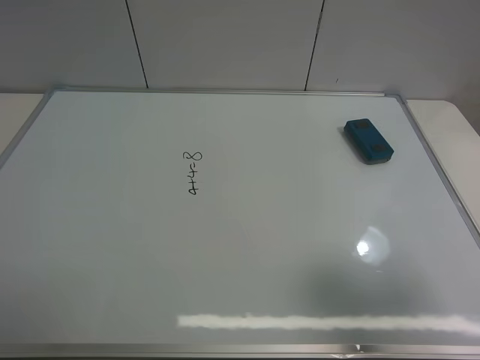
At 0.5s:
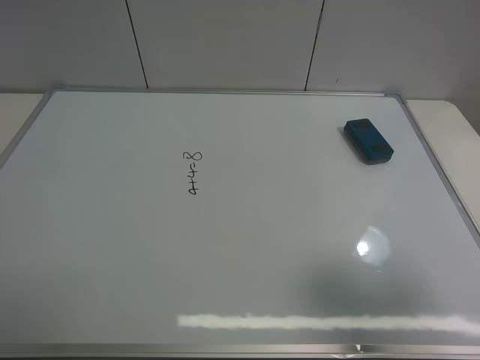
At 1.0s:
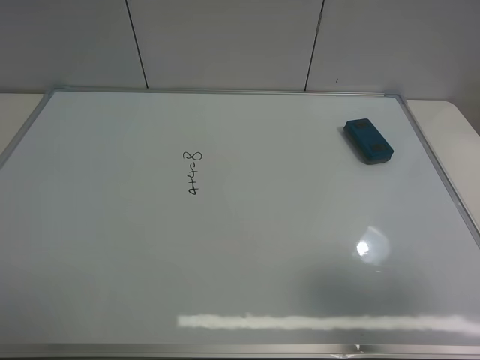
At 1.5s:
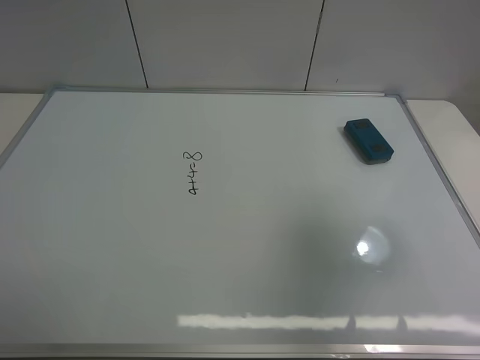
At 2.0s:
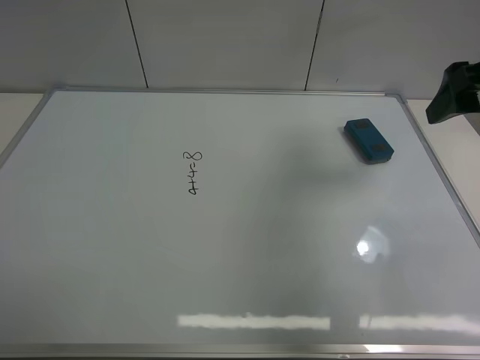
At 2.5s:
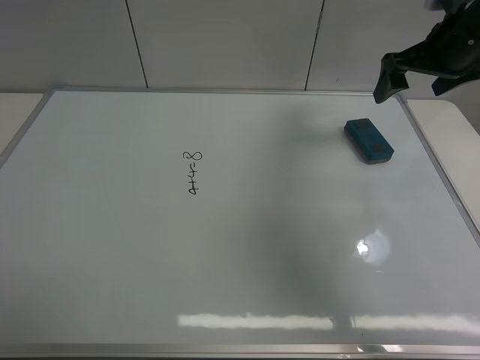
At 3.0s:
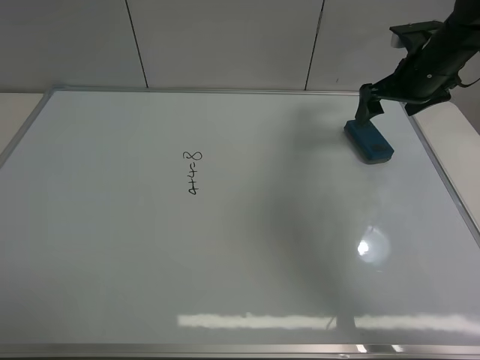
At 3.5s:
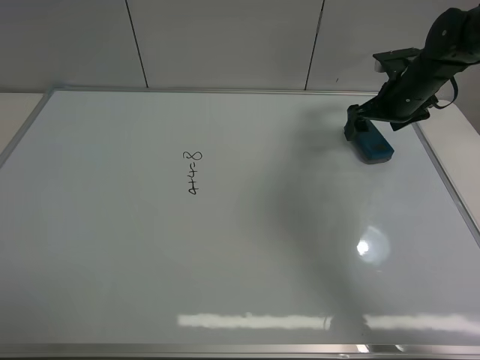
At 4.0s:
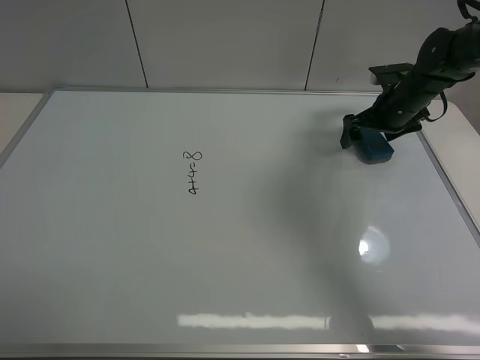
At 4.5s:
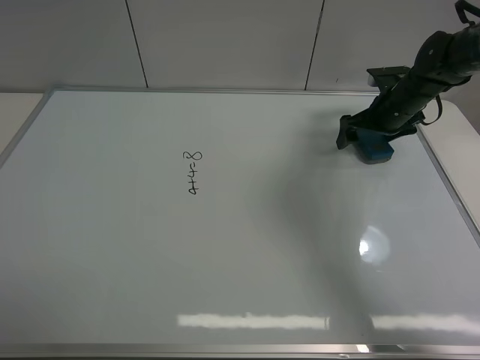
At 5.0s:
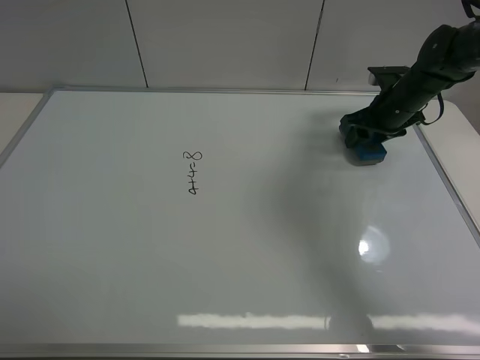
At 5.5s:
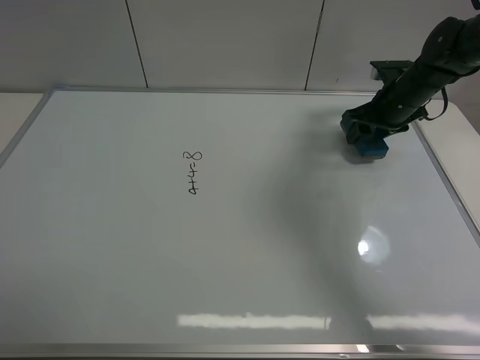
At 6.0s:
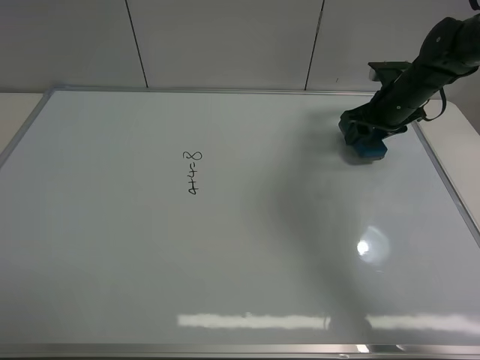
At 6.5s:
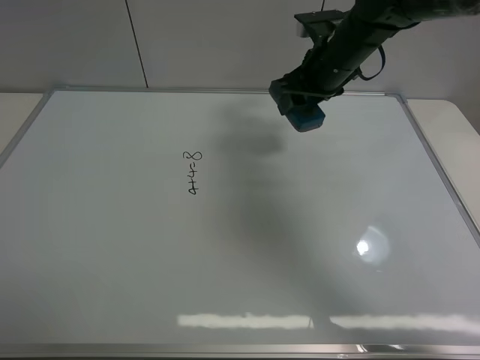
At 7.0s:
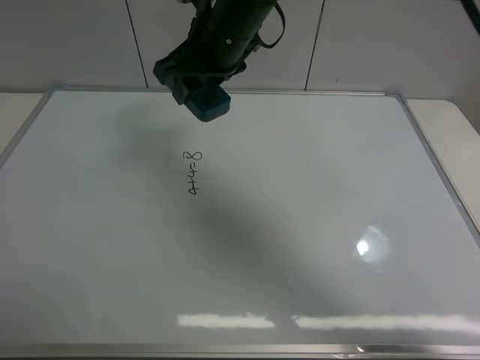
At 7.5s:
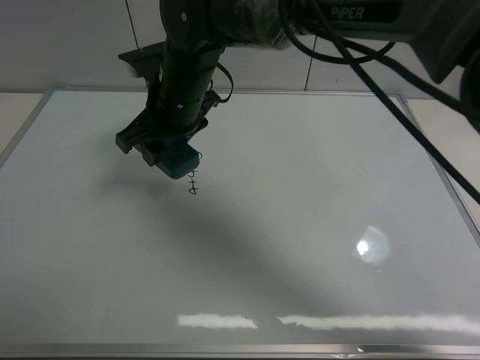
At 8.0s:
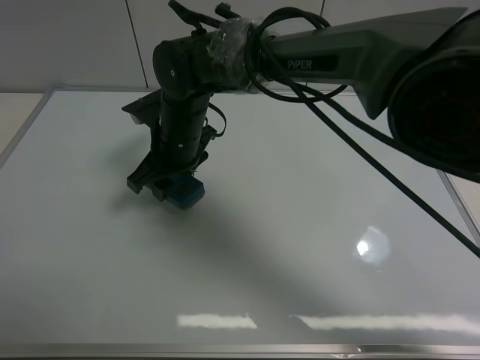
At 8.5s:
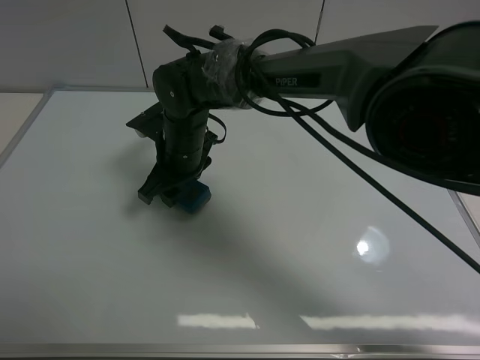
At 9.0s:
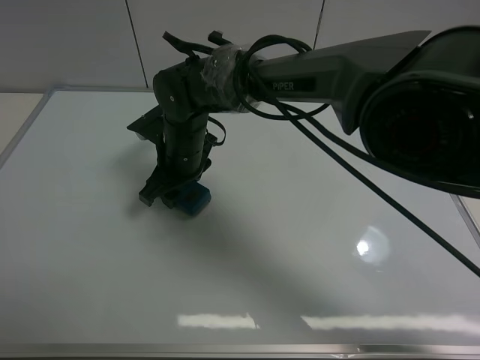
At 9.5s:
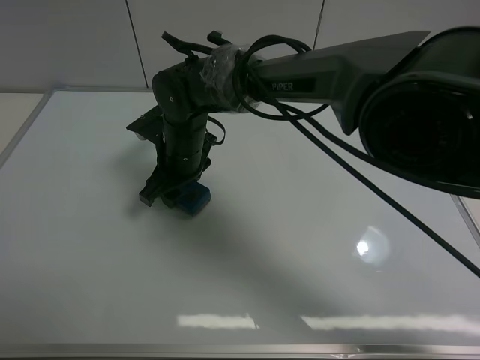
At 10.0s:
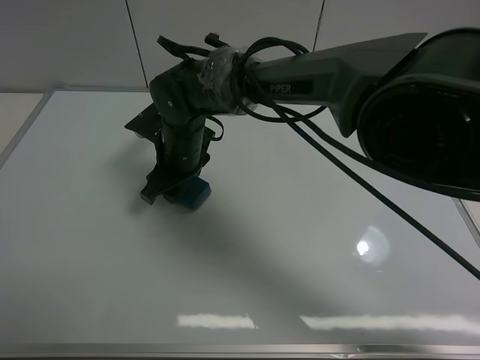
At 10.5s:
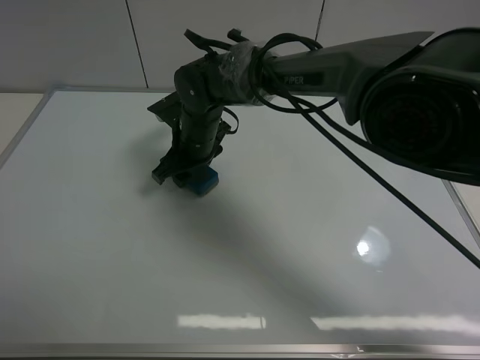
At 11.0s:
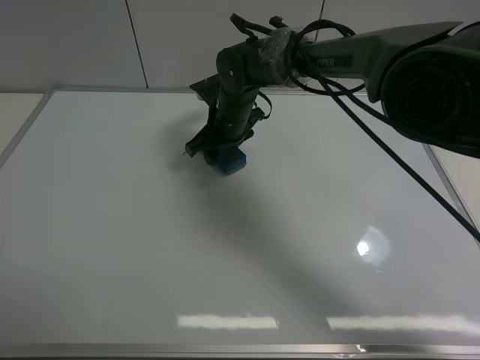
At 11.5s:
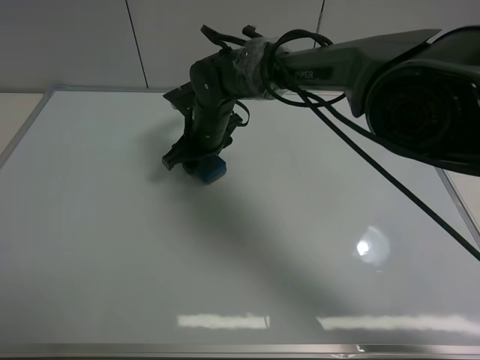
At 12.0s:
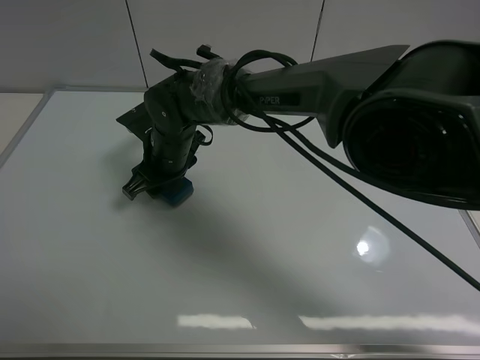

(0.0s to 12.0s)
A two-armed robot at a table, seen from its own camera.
Task of the whole recording: use the right gripper to pick up the board eraser, wipe the notes on the whiteboard clean, and then put them back in place.
Step, 0.0s - 6.0s: Pick up the board eraser with right gripper.
0.0s - 2.0s: The right gripper shifts about 25 cm forward.
2.0s - 4.0s: The right gripper heads downward and forward, covering some 25 cm.
4.0s - 6.0s: The right gripper closes up.
6.0s - 8.0s: The right gripper moves to the left, about 35 cm.
8.0s - 10.0s: The grippers make only small movements.
10.0s - 12.0s: The right gripper goes to the right and returns, some 5 cm each way.

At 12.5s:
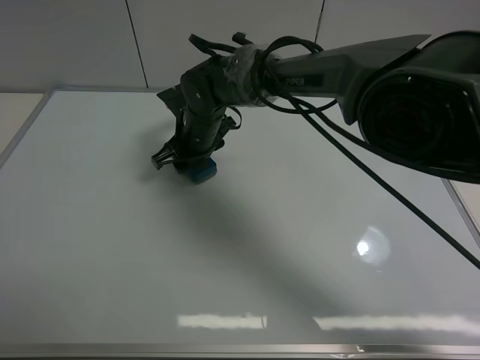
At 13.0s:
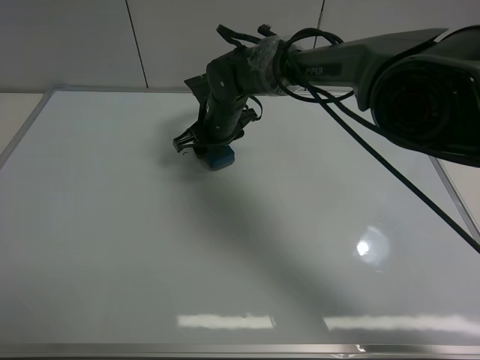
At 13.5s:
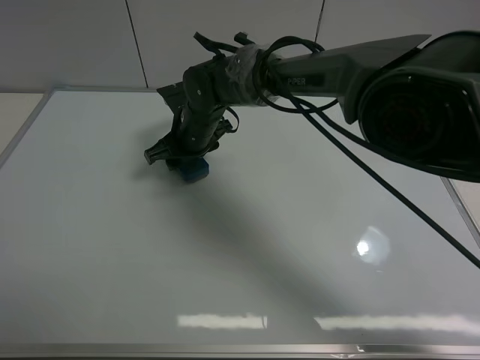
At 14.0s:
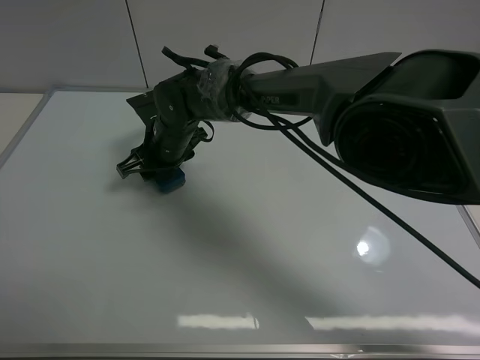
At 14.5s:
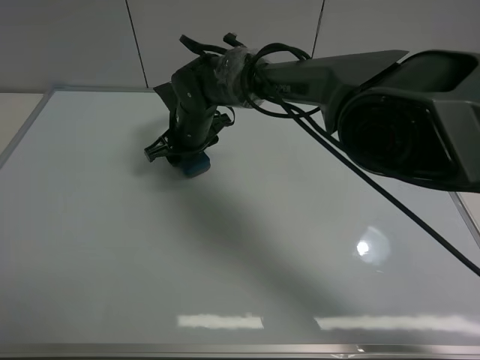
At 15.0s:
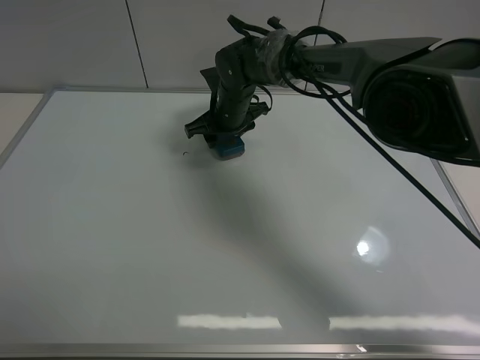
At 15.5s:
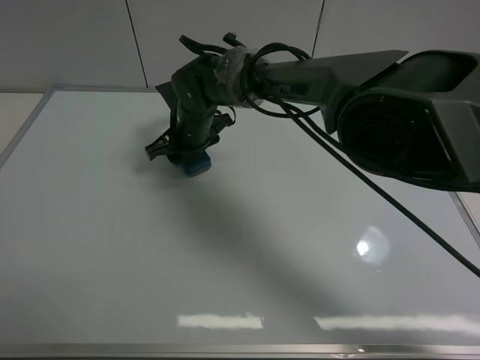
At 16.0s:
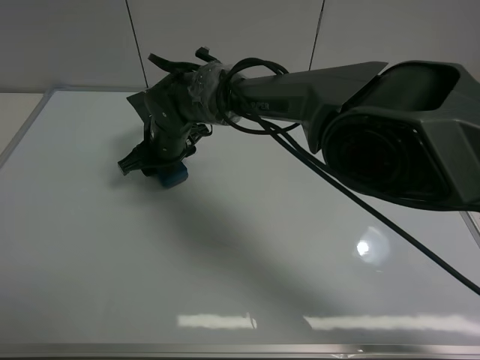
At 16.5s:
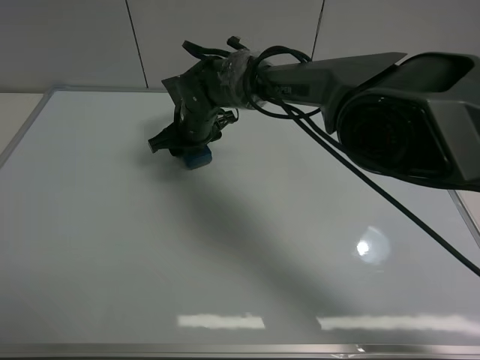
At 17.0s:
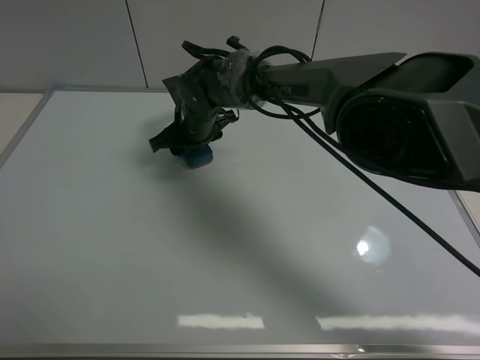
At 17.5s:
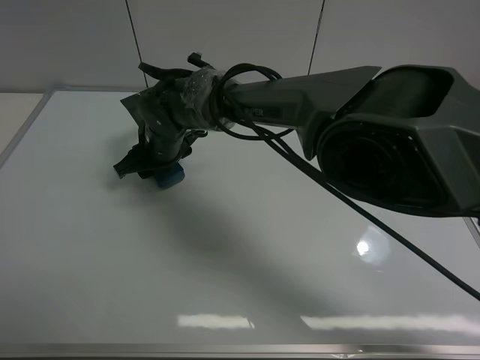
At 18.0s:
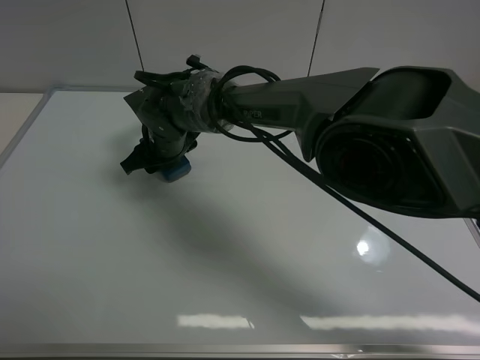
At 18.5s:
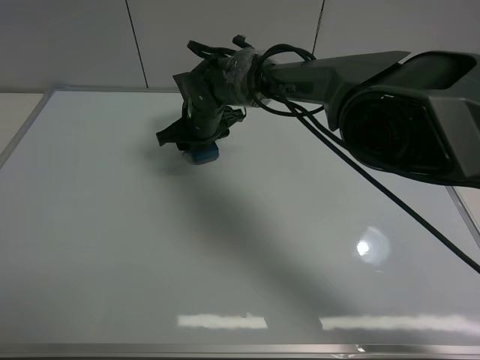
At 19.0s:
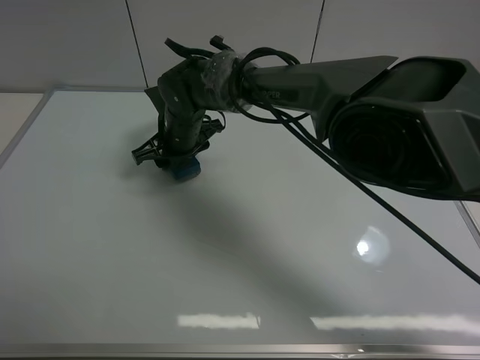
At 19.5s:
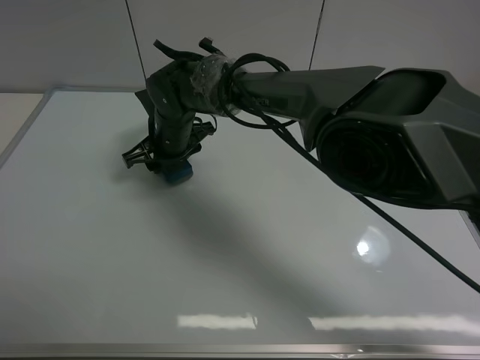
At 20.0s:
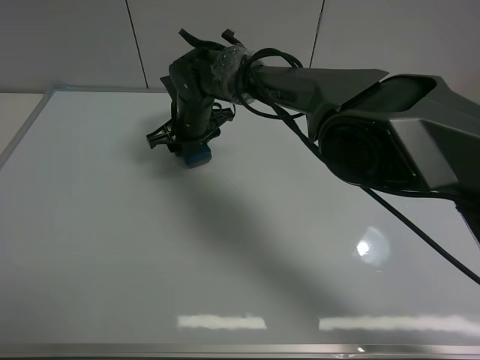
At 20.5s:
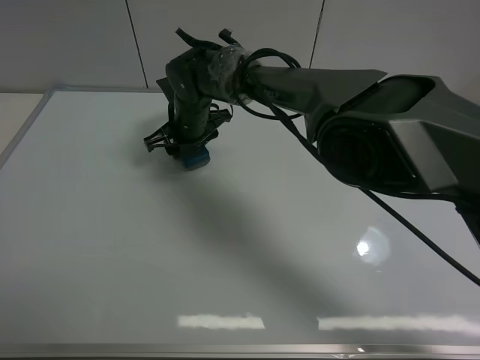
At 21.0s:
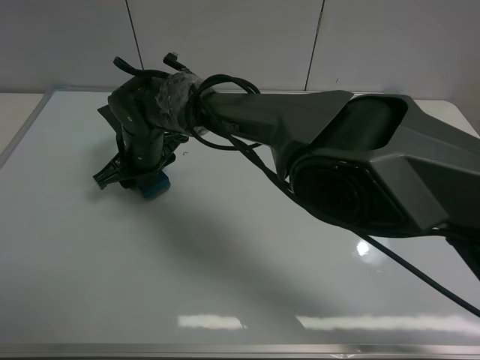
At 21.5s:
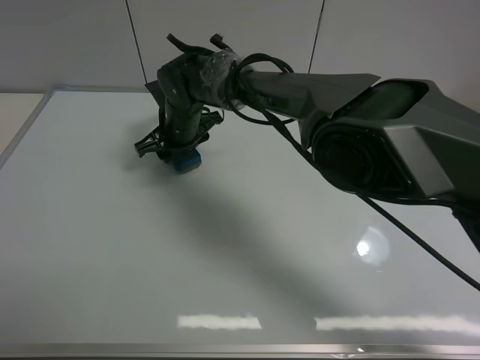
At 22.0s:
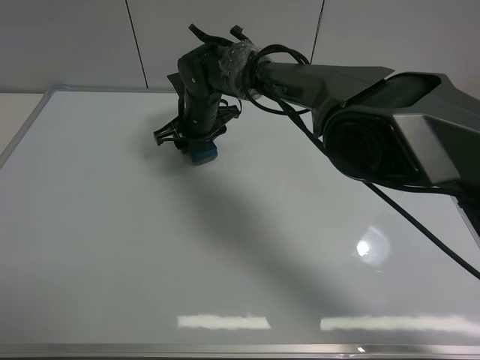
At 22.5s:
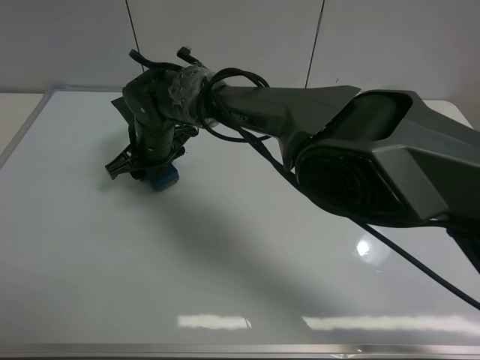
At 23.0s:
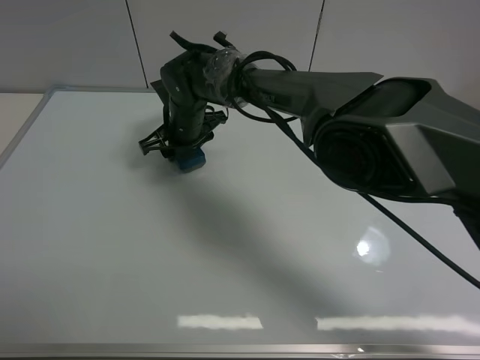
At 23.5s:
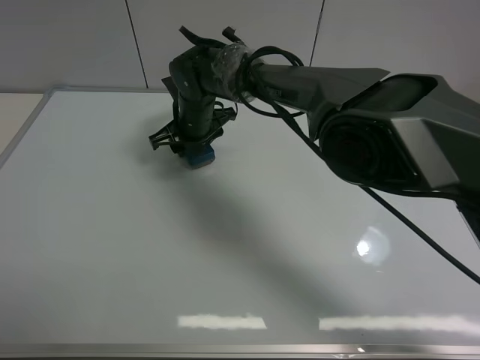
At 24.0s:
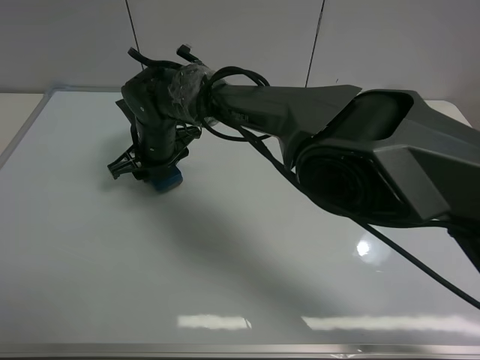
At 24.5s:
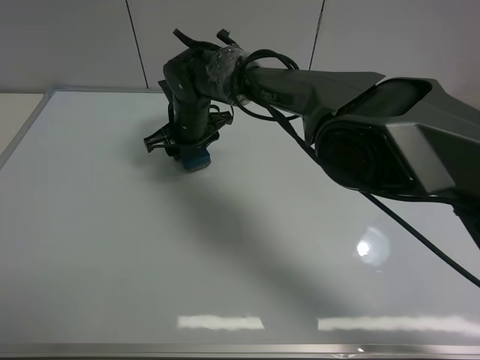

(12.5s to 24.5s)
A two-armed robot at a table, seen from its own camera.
Task of the whole recording: use the right gripper to pick up the board eraser, wipe the notes on the whiteboard clean, and then put them back in place.
12.5s - 14.5s: There are only small adjustments of the grippers.
14.5s - 16.5s: The right gripper goes left and right, roughly 10 cm each way, reversing 2 times.
20.5s - 22.5s: The right gripper goes forward and backward, about 10 cm each way, reversing 2 times.
22.5s - 24.5s: The right gripper moves left and right over some 5 cm, changing direction 2 times.

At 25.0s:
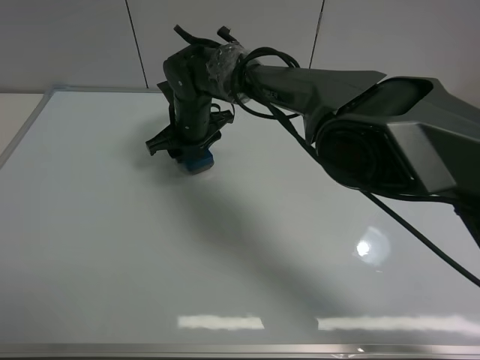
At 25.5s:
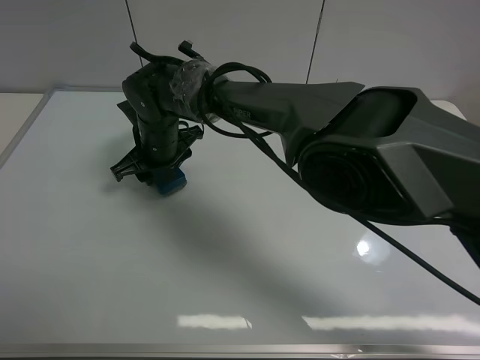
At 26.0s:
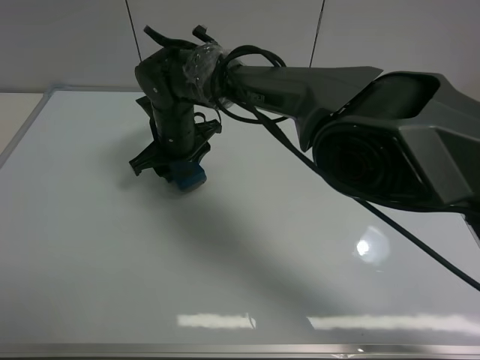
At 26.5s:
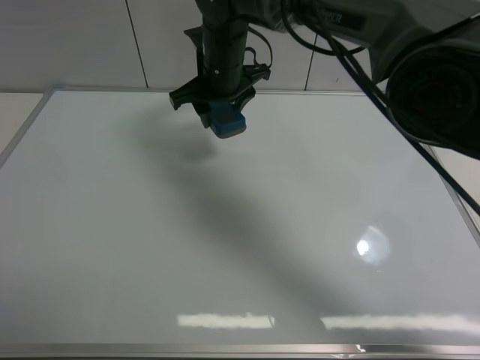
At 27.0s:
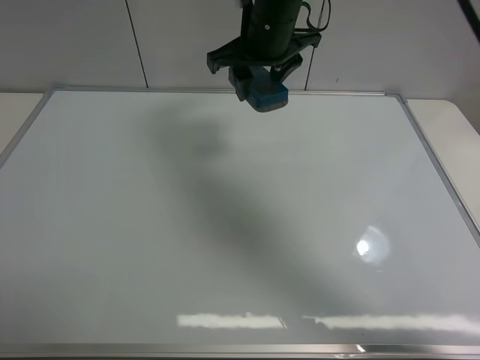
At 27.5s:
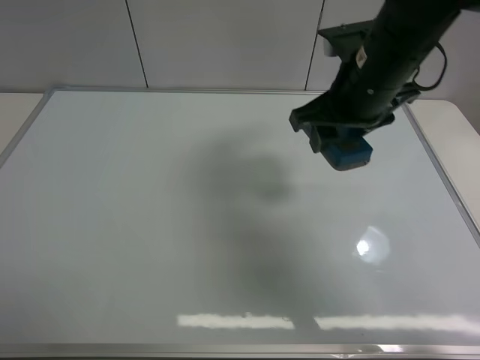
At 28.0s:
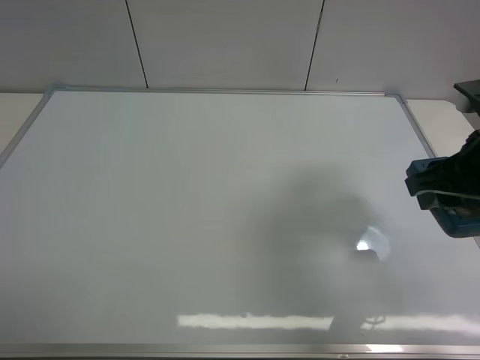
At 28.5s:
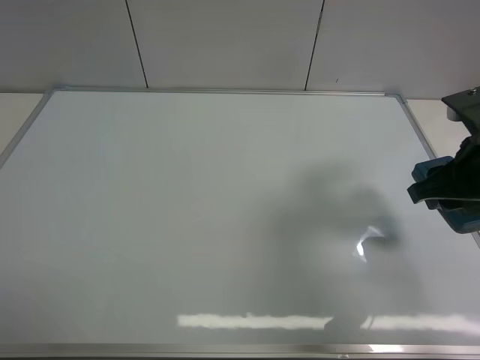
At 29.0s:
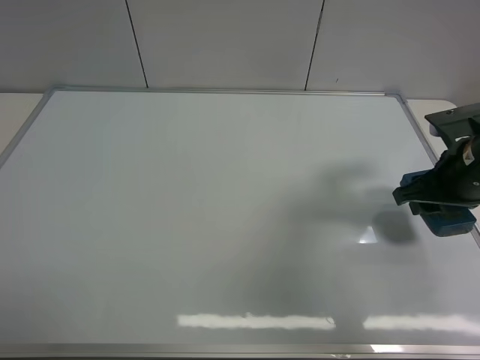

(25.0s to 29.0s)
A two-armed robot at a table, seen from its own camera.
Task of the whole recording: use the right gripper to pick up the board eraser, wipe the notes on the whiteboard clean, and then put them back in place.
25.0s - 27.0s: The right gripper heads upward and to the right, covering approximately 20 cm.
27.0s - 29.0s: The right gripper travels to the right, backward and downward by some 30 cm.
